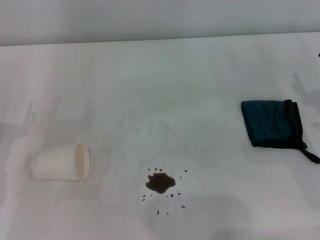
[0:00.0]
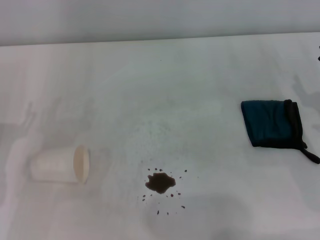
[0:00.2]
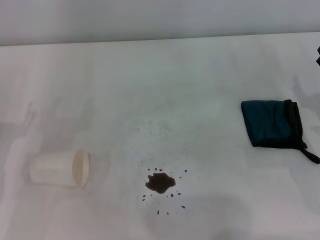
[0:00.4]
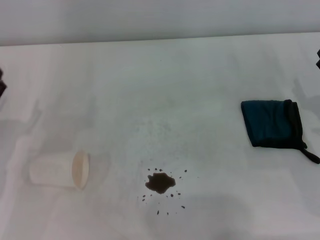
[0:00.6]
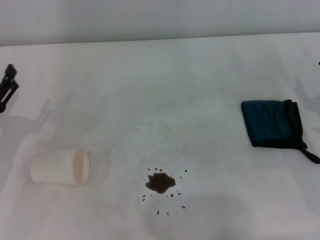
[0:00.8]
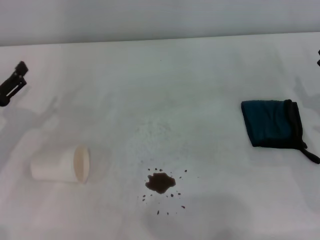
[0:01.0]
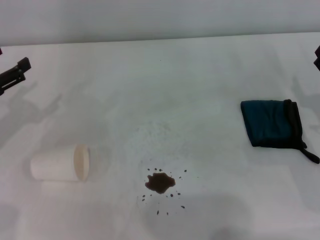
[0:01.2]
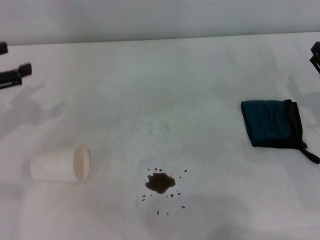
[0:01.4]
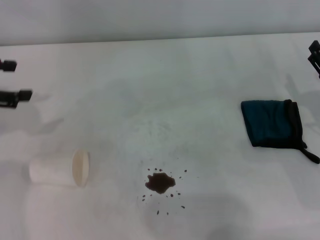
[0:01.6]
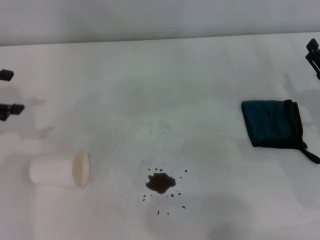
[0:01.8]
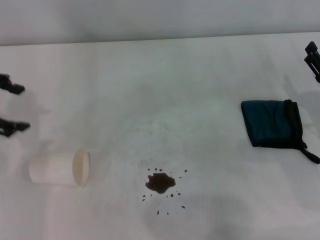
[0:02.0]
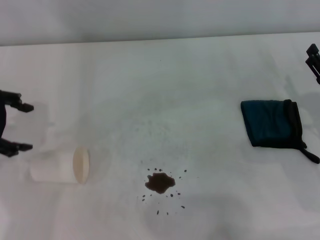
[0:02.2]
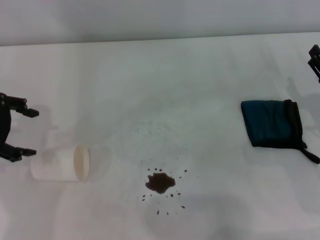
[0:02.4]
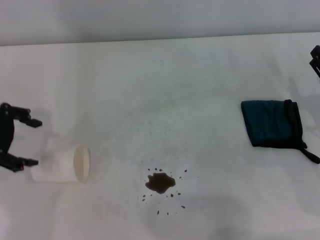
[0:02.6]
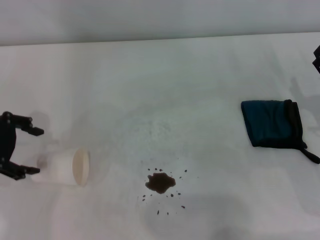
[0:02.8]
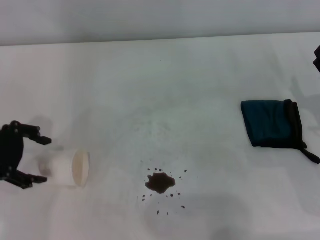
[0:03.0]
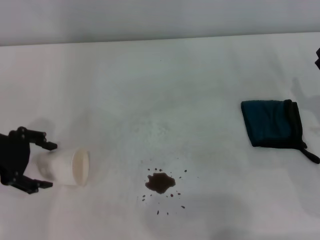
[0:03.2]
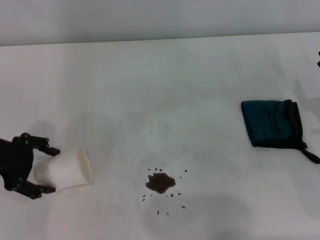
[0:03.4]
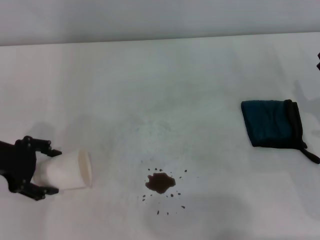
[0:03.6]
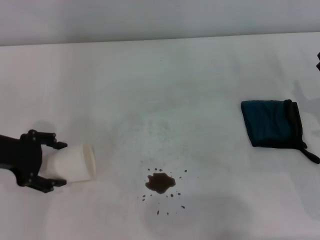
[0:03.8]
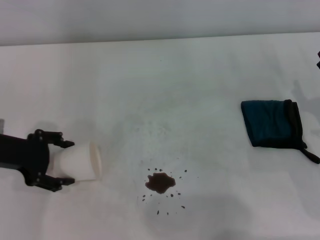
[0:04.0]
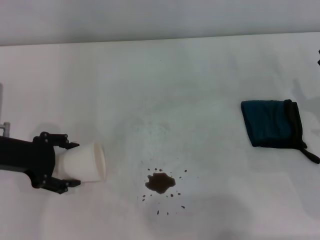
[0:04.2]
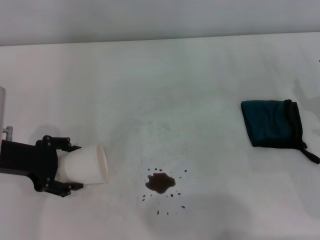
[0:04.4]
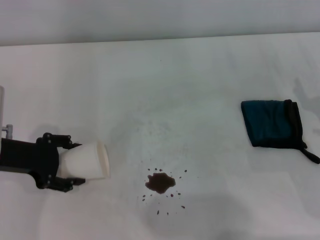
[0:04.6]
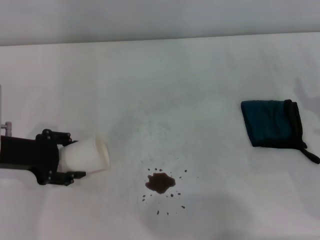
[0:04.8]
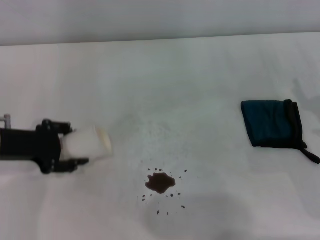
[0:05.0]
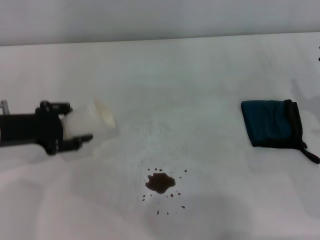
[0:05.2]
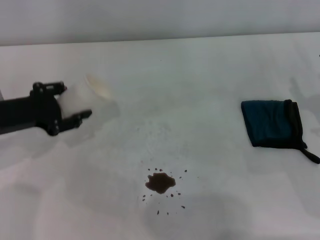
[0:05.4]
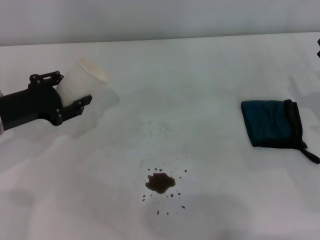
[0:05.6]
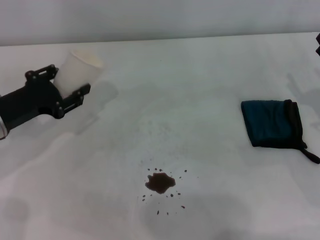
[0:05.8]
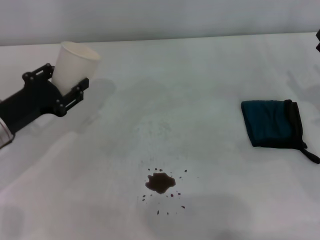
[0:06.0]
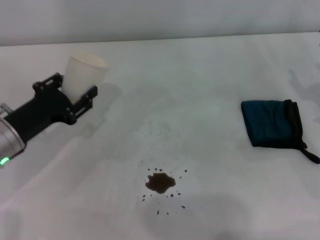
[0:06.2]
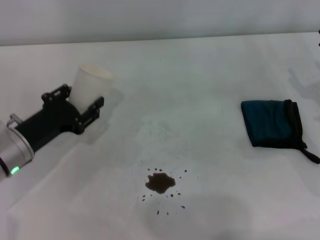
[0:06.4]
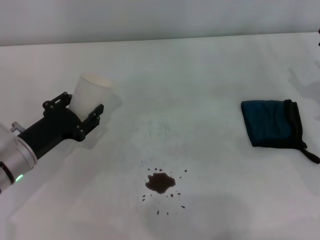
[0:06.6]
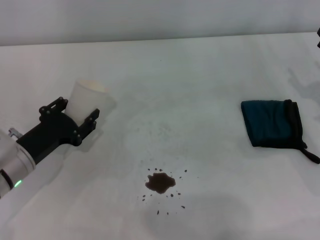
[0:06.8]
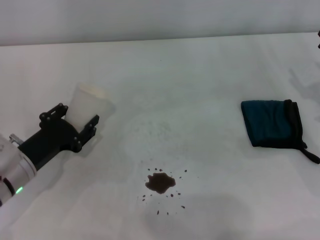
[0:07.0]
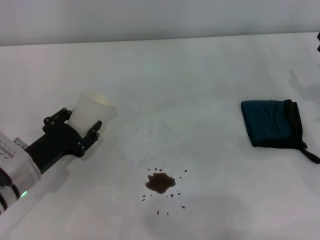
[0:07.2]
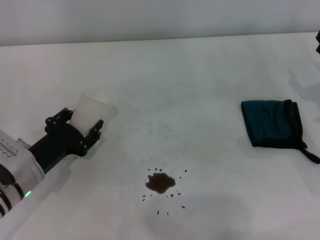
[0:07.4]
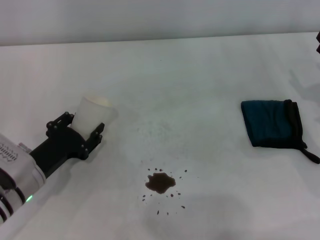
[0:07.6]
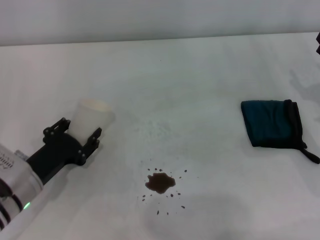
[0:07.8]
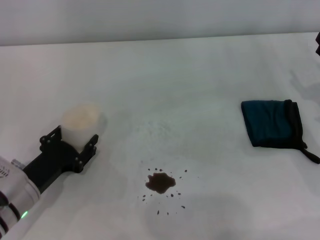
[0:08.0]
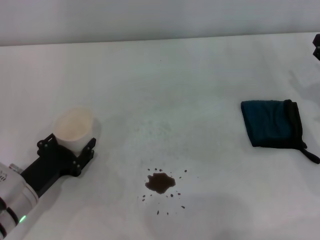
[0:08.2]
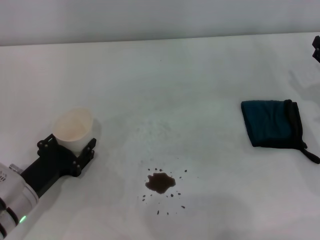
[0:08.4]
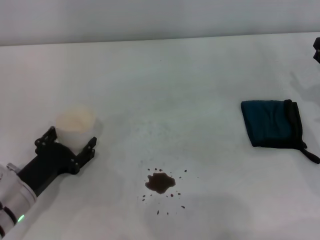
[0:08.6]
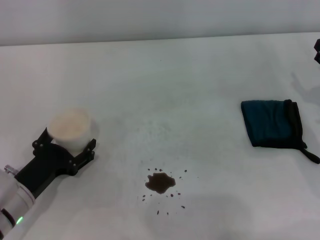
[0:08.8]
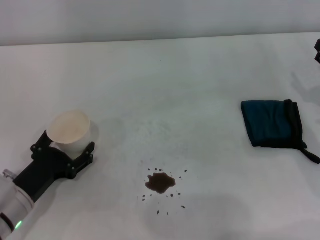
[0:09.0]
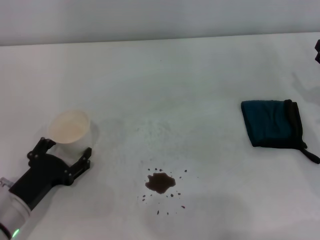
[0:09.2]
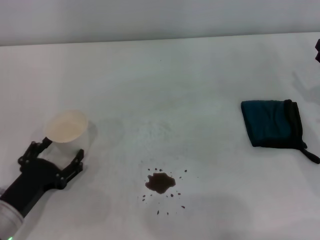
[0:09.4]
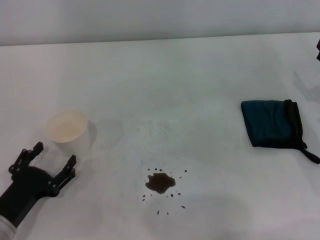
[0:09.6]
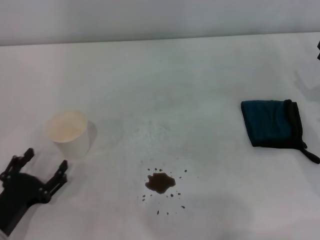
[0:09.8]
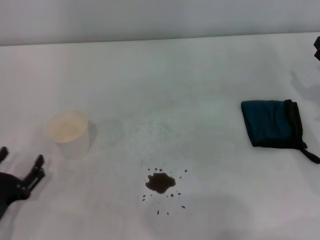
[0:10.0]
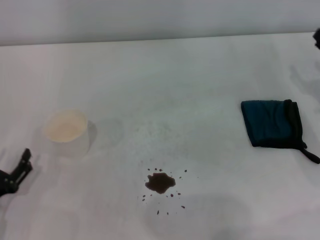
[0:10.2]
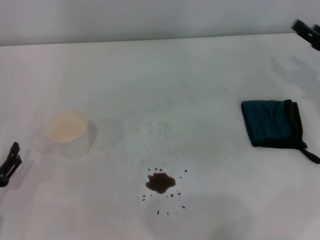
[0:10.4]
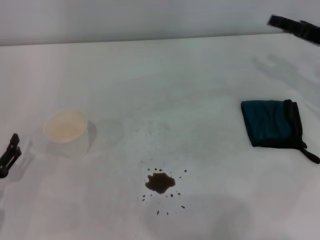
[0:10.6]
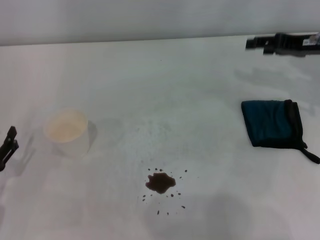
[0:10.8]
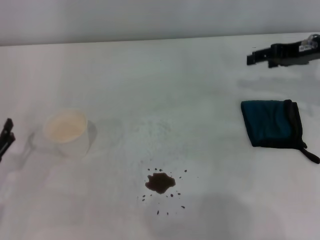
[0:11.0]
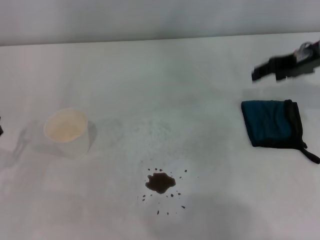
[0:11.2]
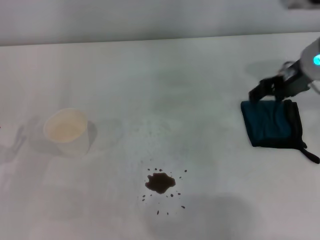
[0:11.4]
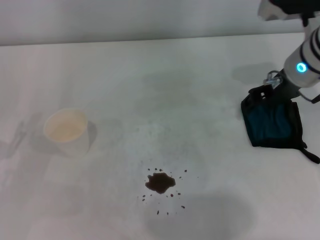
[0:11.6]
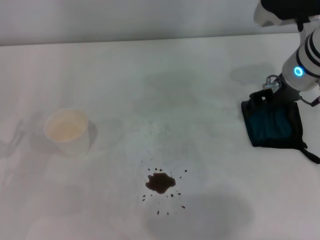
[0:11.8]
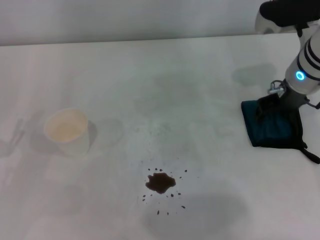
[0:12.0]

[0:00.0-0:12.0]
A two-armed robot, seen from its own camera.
Step, 0:00.0 to 0:04.2: Grasp the paper cup with the left gripper.
Step, 0:04.4 to 0:08.6: Stand the paper cup upright with the left gripper.
0:00.0 to 0:01.6: The left gripper heads upward and forward, covering some 20 cm.
0:01.6 to 0:03.0: The left gripper changes place by approximately 5 cm.
0:03.0 to 0:04.4: The left gripper moves downward, approximately 5 cm.
0:04.4 to 0:06.0: The left gripper closes up.
0:06.0 to 0:07.6: The left gripper goes some 10 cm downward and backward.
0:07.6 to 0:09.0: The left gripper opens its fingers.
0:09.0 to 0:10.4: The left gripper heads to the left, covering approximately 5 cm. The right gripper is displaced forward by approximately 5 cm.
0:10.4 to 0:12.0: The left gripper shifts by roughly 5 cm; the right gripper travels to the left and upward by about 15 cm.

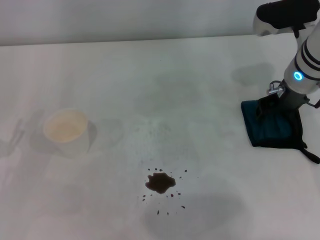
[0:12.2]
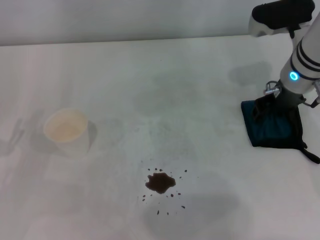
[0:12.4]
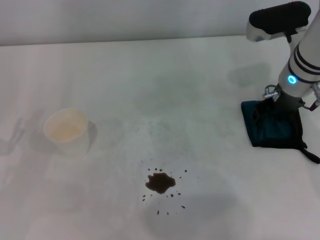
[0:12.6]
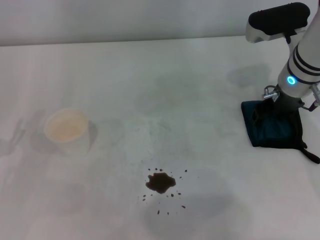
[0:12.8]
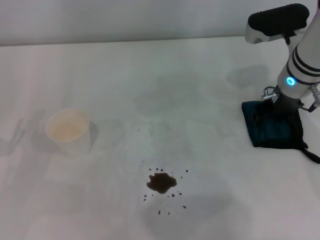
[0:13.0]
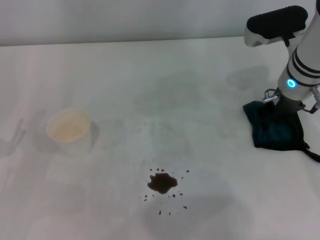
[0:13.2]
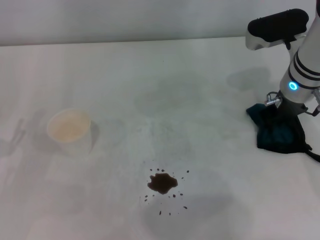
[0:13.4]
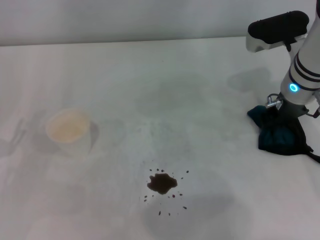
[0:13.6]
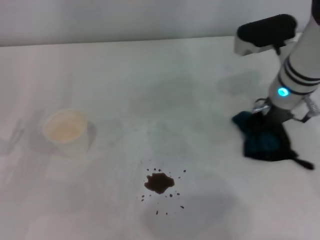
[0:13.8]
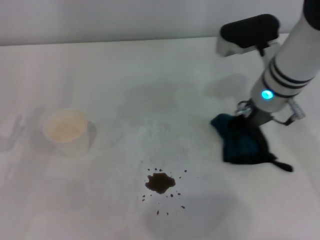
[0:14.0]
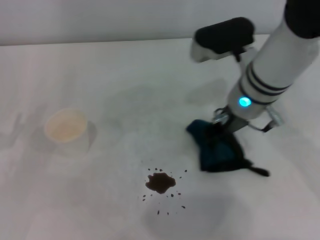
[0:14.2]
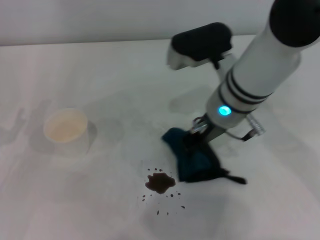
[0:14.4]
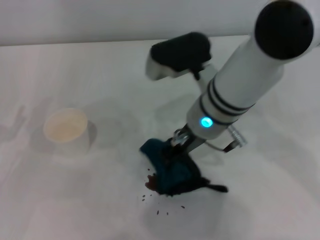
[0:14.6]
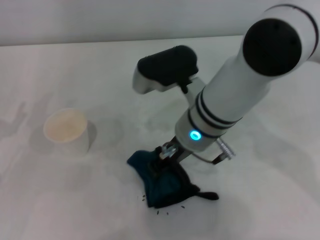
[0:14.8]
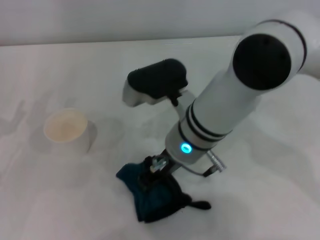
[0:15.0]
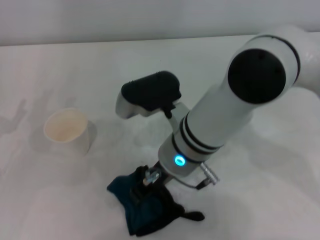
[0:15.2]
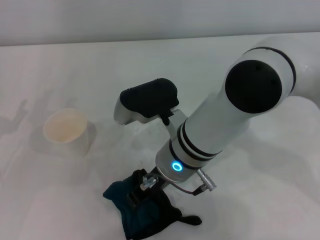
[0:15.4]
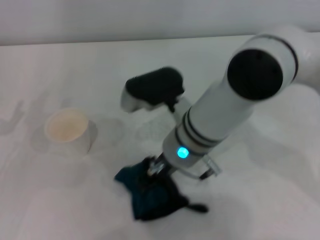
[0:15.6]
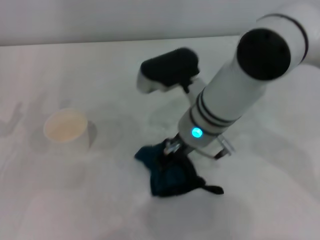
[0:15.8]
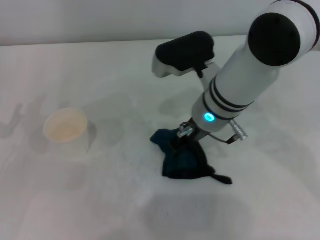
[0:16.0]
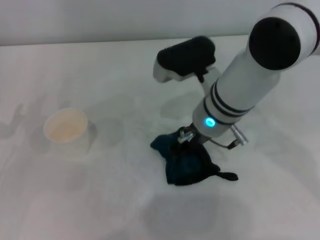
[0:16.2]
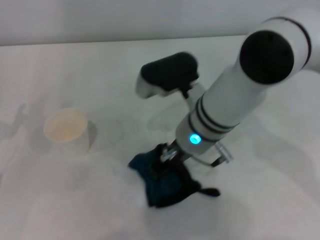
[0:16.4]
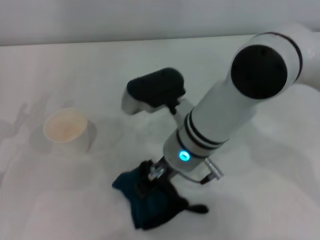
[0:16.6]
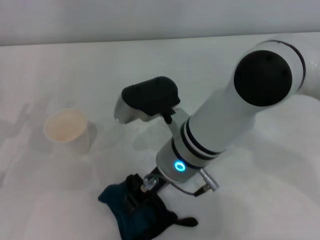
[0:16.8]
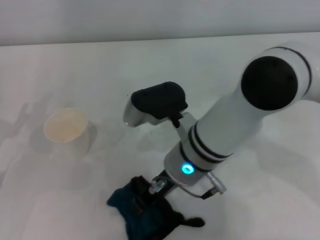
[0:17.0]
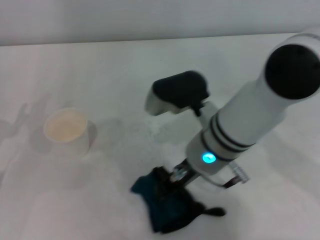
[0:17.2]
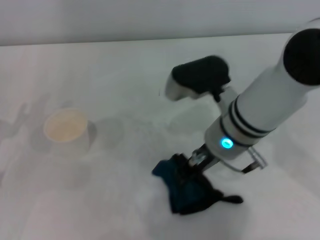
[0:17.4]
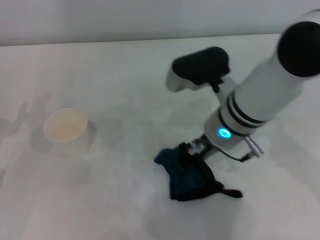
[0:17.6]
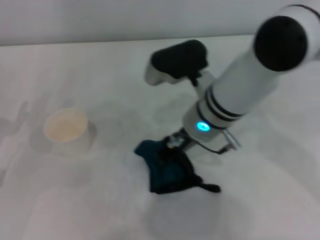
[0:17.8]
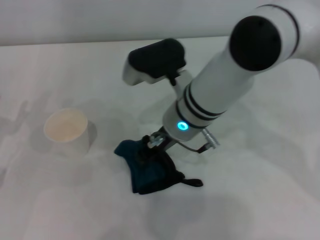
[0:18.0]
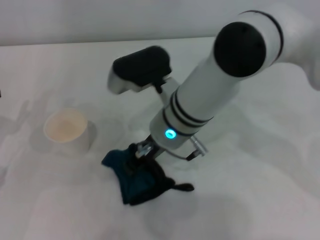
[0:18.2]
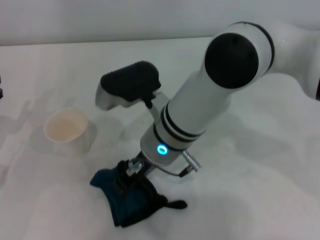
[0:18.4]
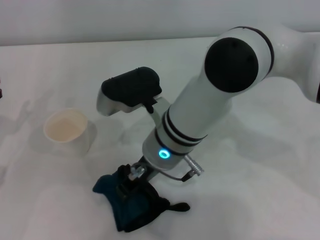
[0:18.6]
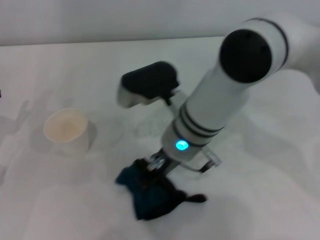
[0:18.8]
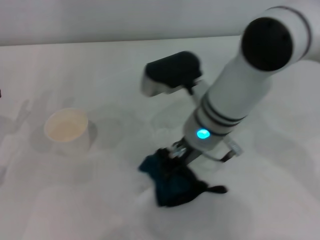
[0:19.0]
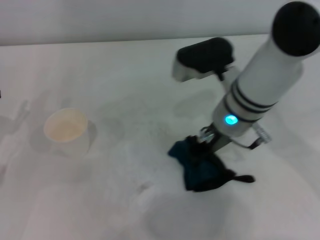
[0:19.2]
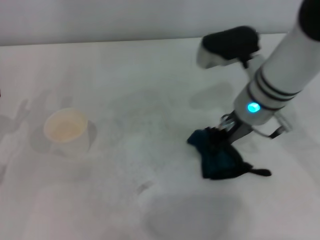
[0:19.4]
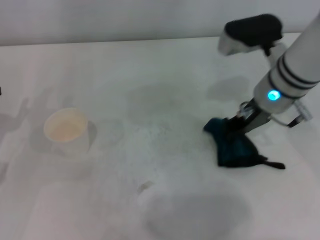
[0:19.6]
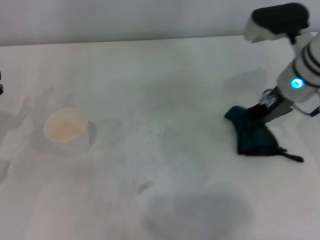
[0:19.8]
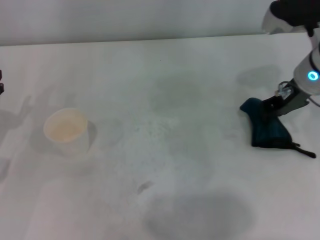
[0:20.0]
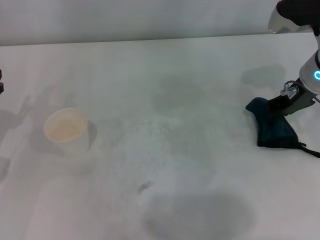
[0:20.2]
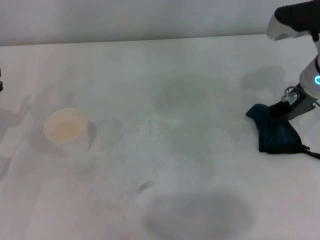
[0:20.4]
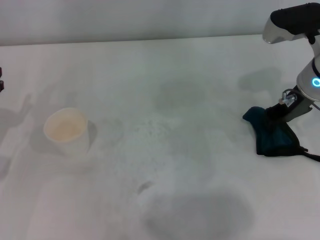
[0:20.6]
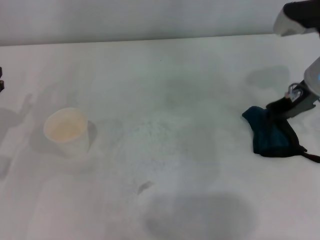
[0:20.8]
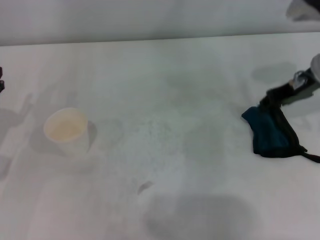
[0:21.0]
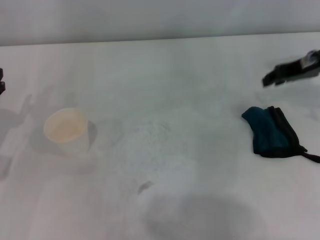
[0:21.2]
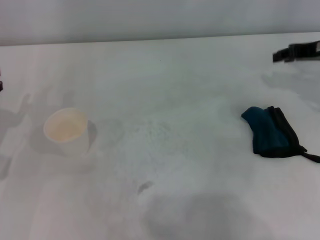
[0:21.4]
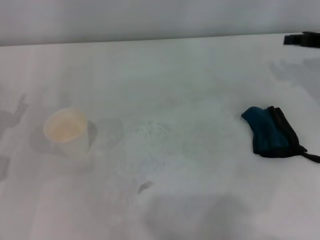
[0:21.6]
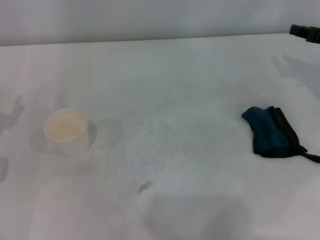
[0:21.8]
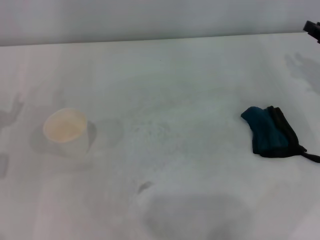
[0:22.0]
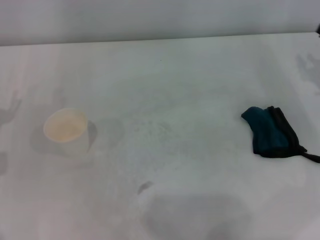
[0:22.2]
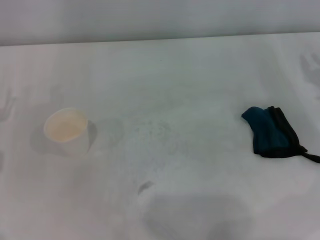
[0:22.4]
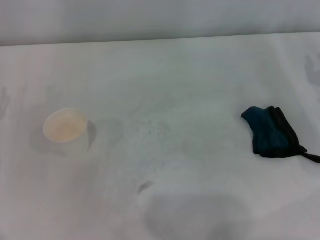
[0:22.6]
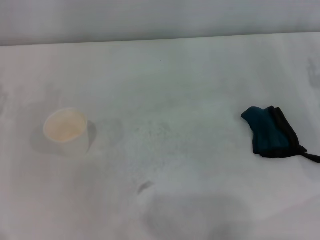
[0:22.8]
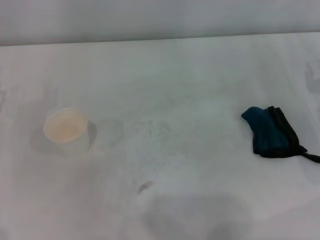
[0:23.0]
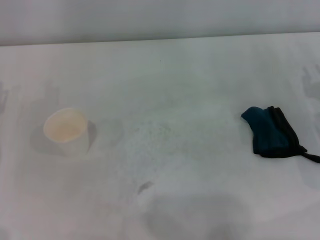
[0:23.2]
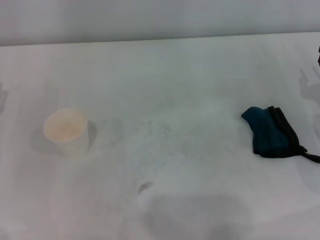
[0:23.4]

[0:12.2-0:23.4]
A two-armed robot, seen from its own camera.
Step, 0:13.6 to 0:19.6: Wipe the stains off the table with the right gripper.
Step, 0:19.8 to 0:20.8: Place the rag on the table with the right gripper.
0:12.2 to 0:13.8: The right gripper closes up.
0:13.8 to 0:15.4: The right gripper heads to the left and backward, covering approximately 20 cm; the left gripper changes place by some 5 cm.
0:17.0 to 0:18.6: The right gripper travels to the right and back again, some 5 cm each way.
0:18.6 to 0:20.2: The right gripper shifts about 25 cm to the right.
0:20.2 to 0:21.8: The right gripper shifts some 10 cm to the right.
0:21.8 to 0:23.4: The right gripper heads downward and backward, covering approximately 10 cm.
